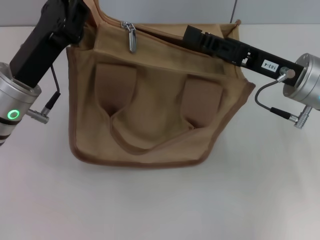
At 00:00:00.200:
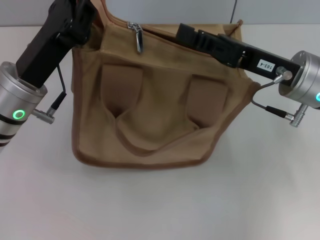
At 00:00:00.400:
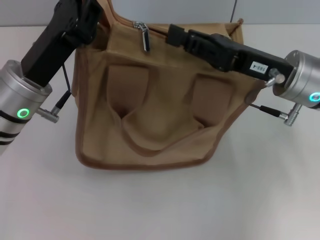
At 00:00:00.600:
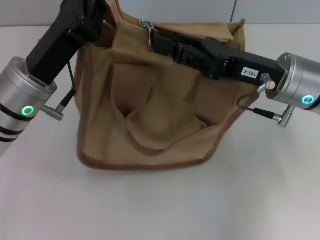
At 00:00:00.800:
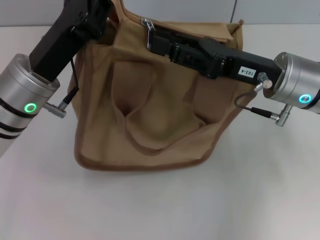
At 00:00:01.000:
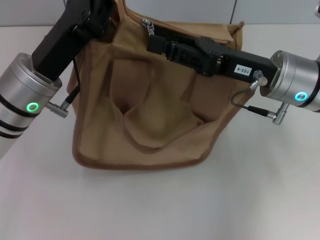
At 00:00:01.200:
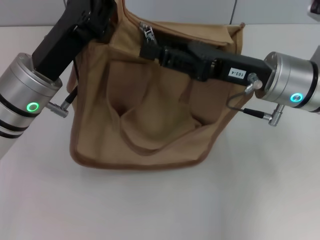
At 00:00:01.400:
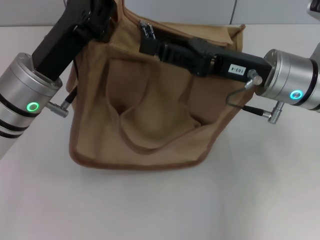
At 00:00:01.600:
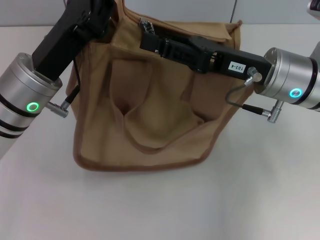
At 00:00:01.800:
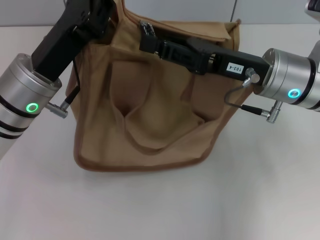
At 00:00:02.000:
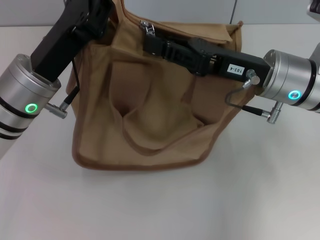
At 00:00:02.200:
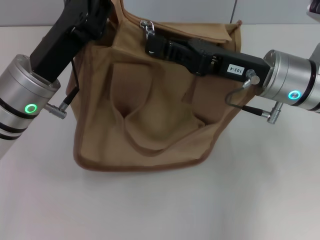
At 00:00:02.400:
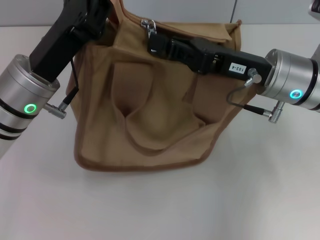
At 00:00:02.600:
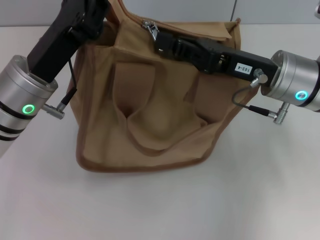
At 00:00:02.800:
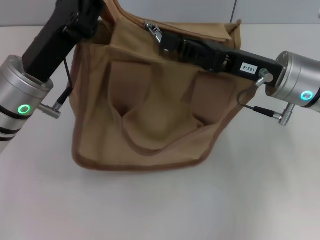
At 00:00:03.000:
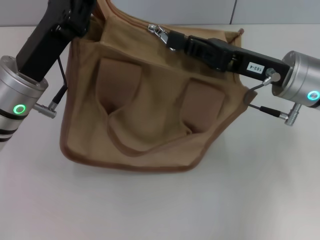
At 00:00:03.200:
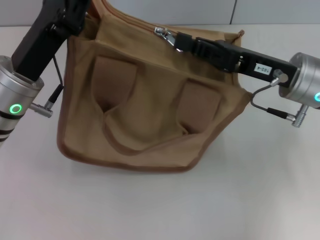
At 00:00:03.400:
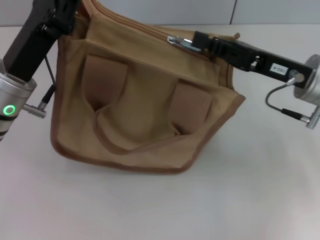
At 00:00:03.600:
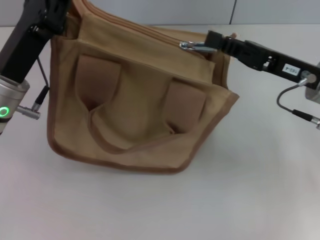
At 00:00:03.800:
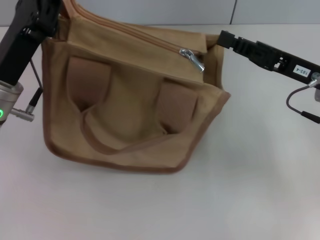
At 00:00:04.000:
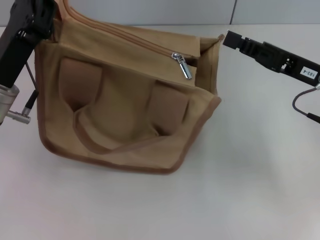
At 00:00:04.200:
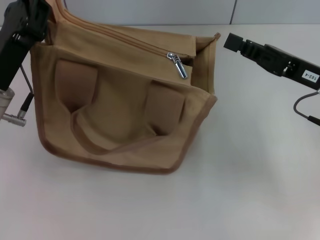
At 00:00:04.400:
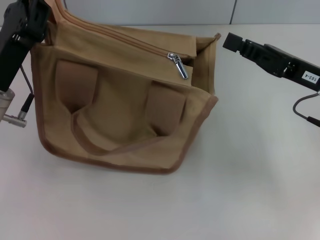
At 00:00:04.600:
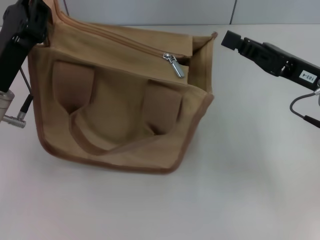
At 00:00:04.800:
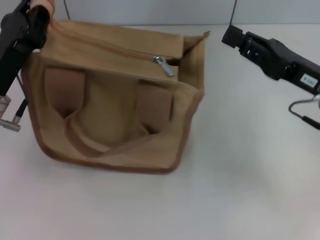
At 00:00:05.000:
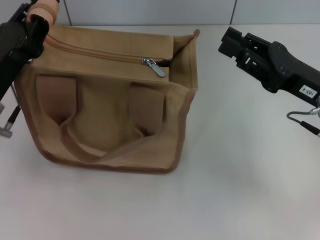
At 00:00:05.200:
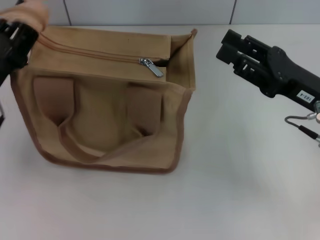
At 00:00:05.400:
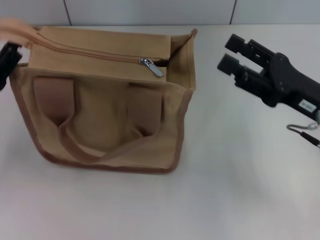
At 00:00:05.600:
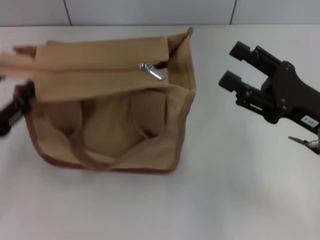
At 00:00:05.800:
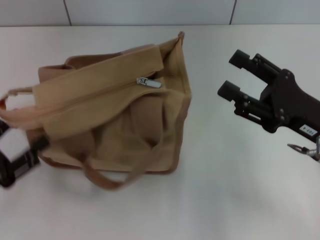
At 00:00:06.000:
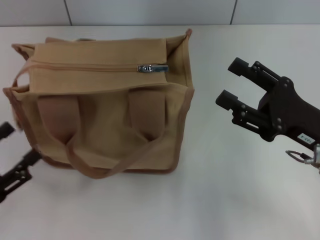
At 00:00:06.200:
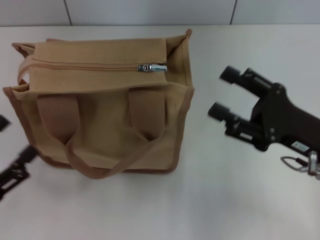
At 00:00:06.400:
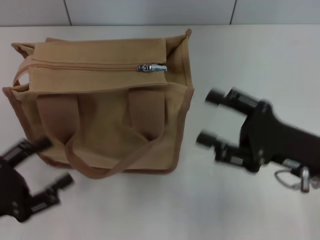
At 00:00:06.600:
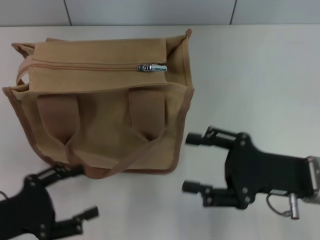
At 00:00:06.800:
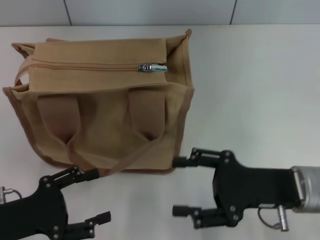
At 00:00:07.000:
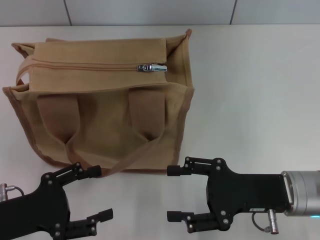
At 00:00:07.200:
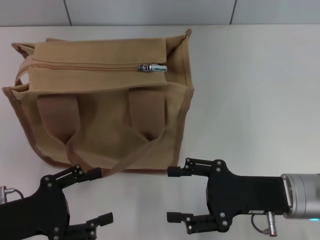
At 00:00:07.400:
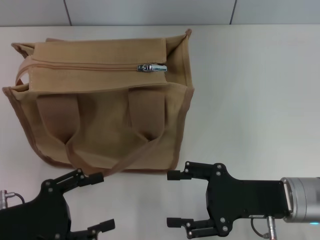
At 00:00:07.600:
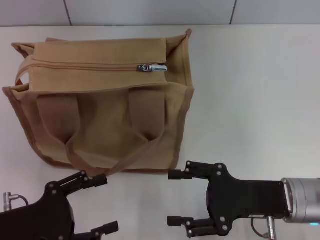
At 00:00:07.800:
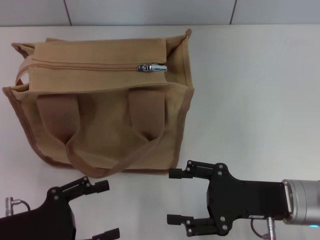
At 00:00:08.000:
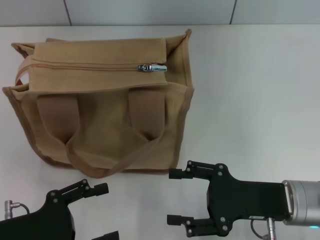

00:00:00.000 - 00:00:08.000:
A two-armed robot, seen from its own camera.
Step, 00:00:00.000 - 00:00:03.800: Pull up the zipper with your right hand.
Step, 00:00:04.000 - 00:00:05.800: Grab the zipper with your left hand.
00:00:00.000 - 00:00:01.600: The right gripper opens.
00:00:01.600 - 00:00:03.200: The right gripper closes up.
00:00:03.200 - 00:00:04.800: The right gripper shifts by some 5 cm. Meanwhile the left gripper changes place by approximately 5 cm.
00:00:04.800 - 00:00:06.400: The left gripper is displaced backward and to the left by roughly 15 cm, and opens its fingers. Meanwhile the right gripper shifts some 5 cm backward, and opens.
00:00:06.400 - 00:00:08.000: The right gripper ends up roughly 5 cm from where it was.
